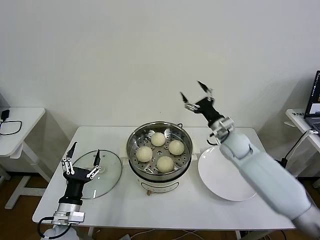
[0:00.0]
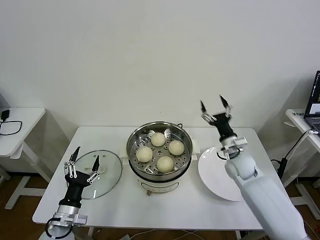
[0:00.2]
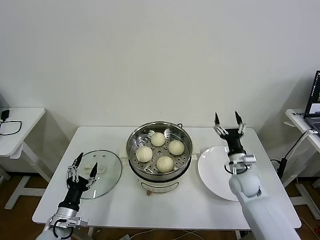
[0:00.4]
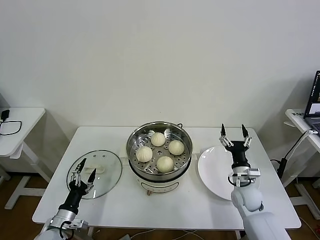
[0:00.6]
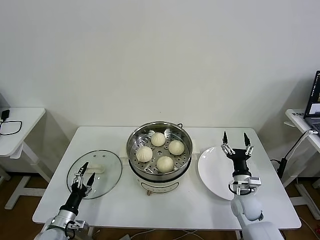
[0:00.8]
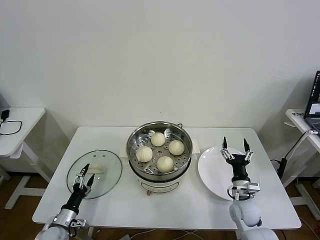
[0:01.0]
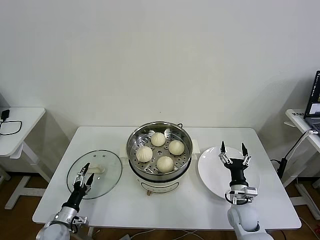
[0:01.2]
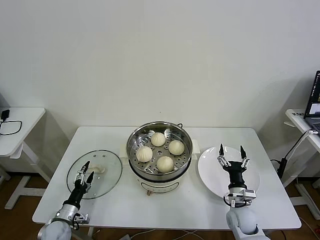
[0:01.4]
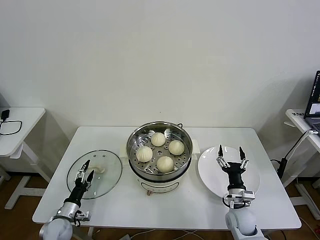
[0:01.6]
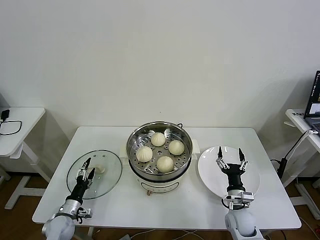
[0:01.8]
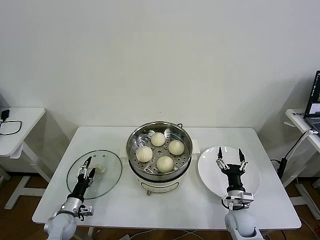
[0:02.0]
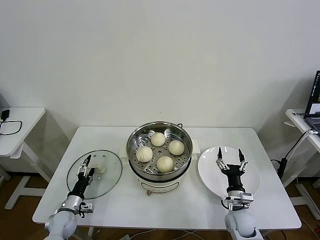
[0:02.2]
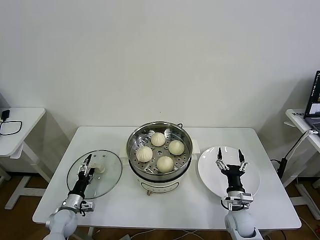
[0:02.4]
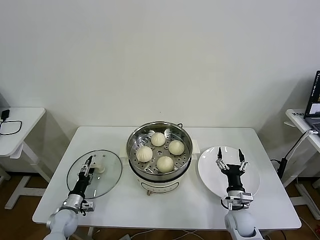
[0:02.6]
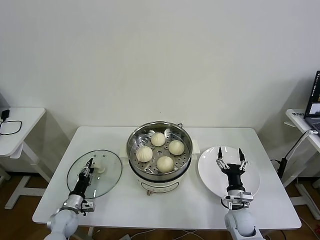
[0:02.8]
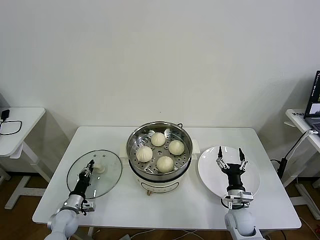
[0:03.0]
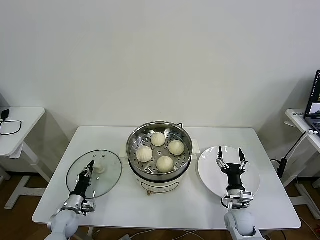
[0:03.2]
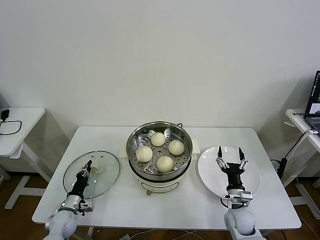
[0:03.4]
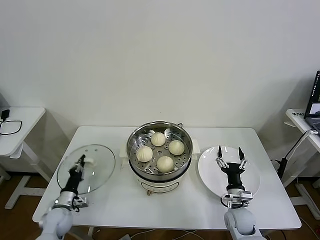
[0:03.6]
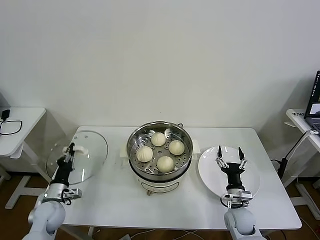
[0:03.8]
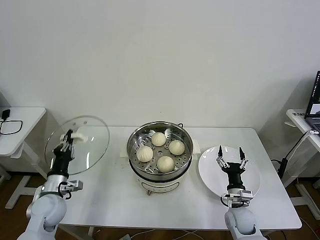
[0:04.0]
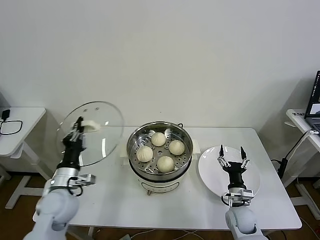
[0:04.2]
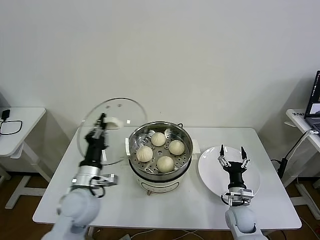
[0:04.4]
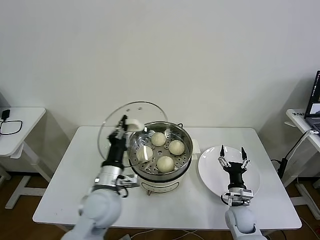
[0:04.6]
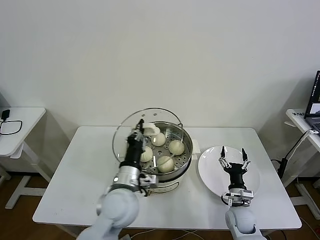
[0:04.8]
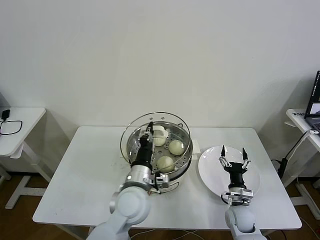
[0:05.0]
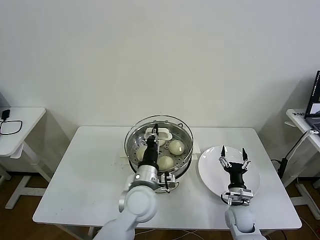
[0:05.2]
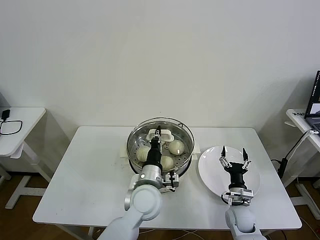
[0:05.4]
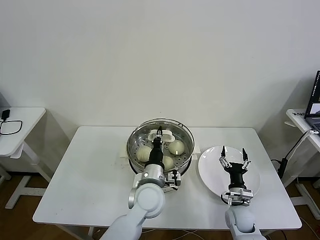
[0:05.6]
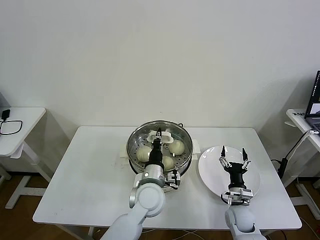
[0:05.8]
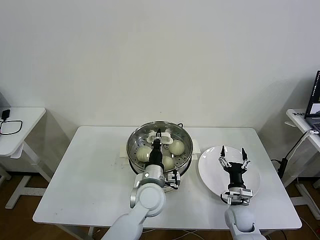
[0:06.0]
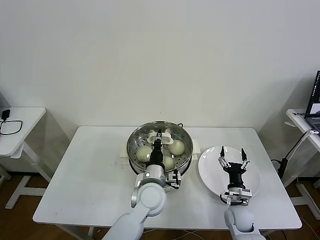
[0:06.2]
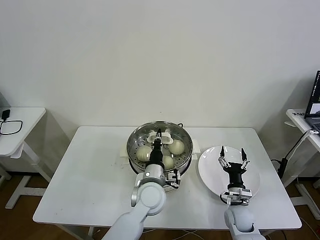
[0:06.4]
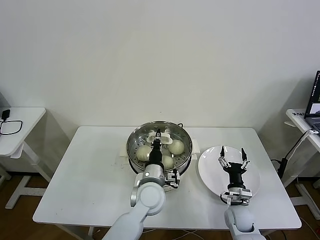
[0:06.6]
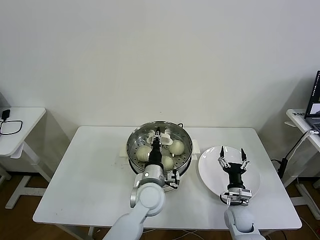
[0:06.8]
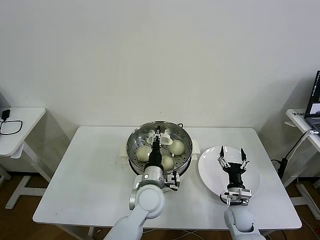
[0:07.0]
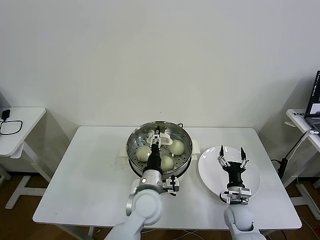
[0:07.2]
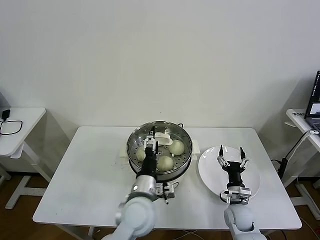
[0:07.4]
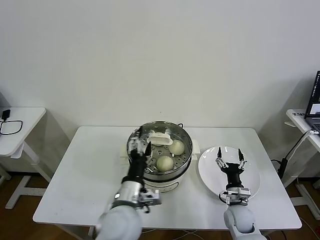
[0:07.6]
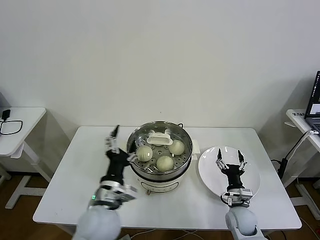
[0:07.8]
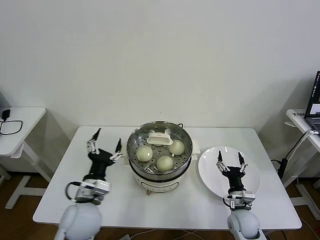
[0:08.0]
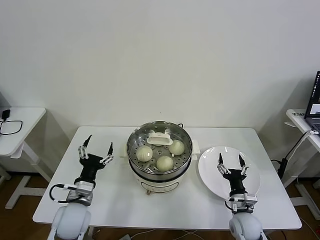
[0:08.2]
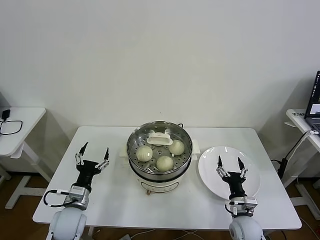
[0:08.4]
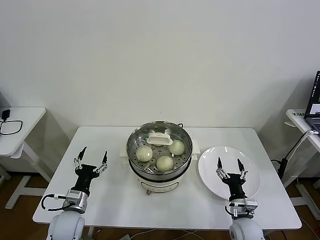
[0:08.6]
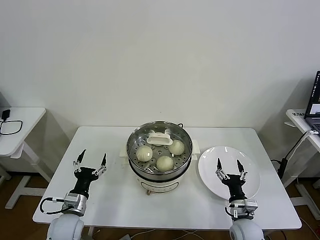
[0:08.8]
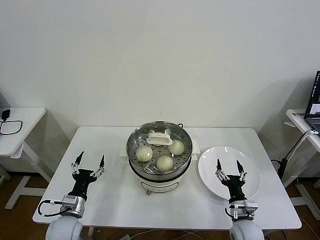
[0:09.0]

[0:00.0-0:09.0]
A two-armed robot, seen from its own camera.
Task of the whole recording: take steamed baozi put them in steamer then cover it.
Step, 0:00.0 to 0:03.4: Grasp the pot lid with left gripper.
Step, 0:03.6 to 0:07.4: Place the pot lid on the steamer with left gripper.
0:00.0 to 0:01.6: The right gripper goes approximately 25 cm downward and backward; the left gripper heads downward and to the left, covering approximately 20 cm.
0:01.6 to 0:03.0: The left gripper closes its fingers.
0:03.0 to 0:04.4: The left gripper shifts some 25 cm upward and to the right.
0:04.4 to 0:06.0: The left gripper travels to the right by some 20 cm.
0:06.0 to 0:07.6: The left gripper goes approximately 10 cm backward and to the left, and opens its fingers.
0:07.6 to 0:09.0: The left gripper moves to the left and downward, approximately 25 cm. The right gripper goes roughly 5 cm backward.
